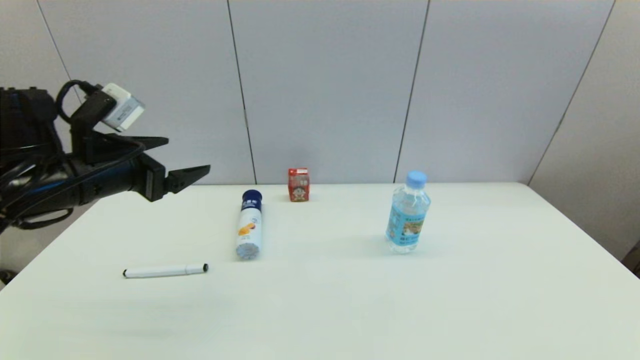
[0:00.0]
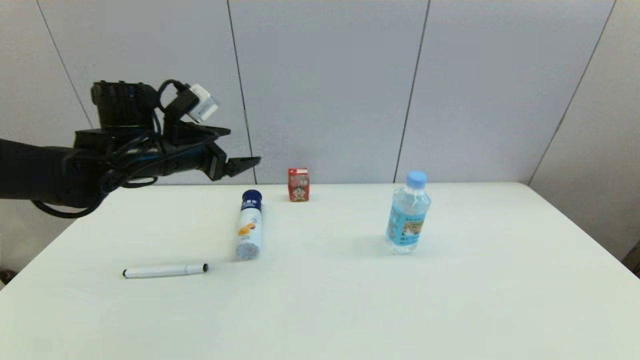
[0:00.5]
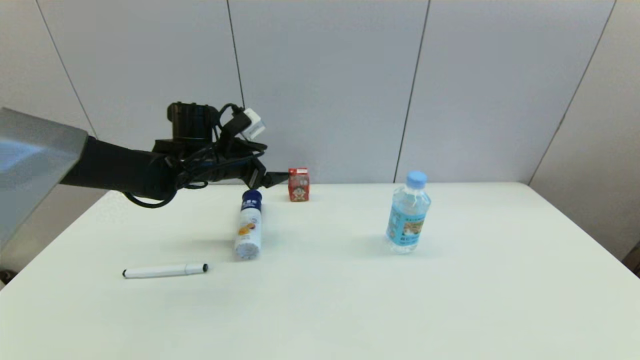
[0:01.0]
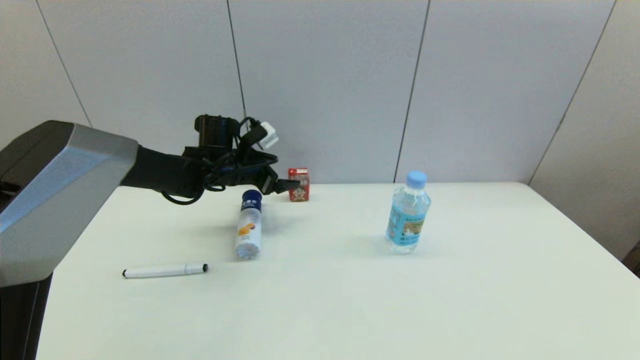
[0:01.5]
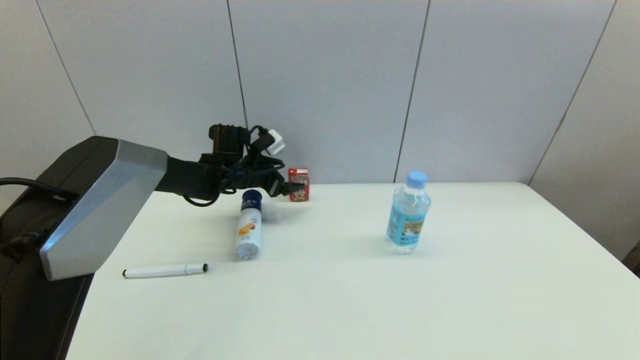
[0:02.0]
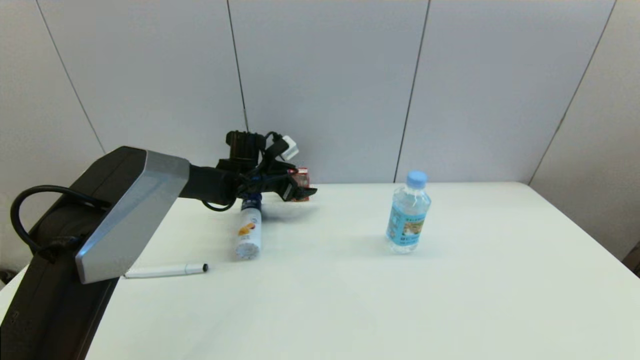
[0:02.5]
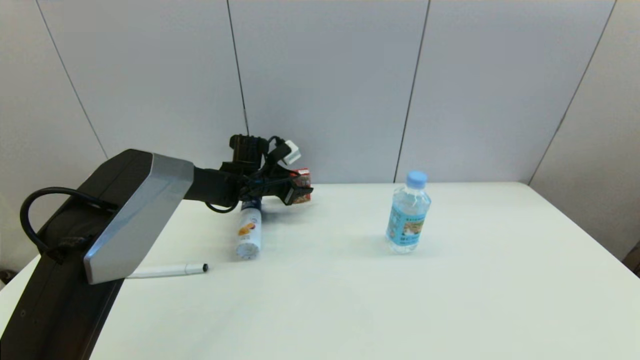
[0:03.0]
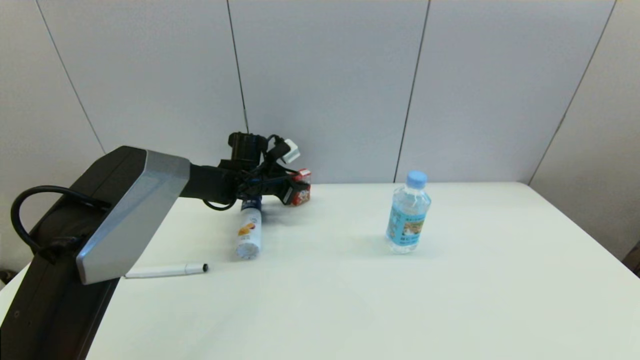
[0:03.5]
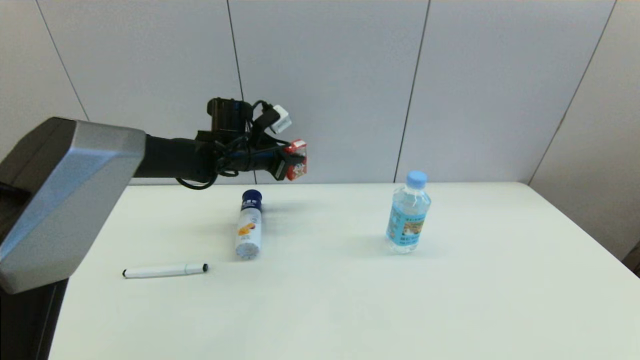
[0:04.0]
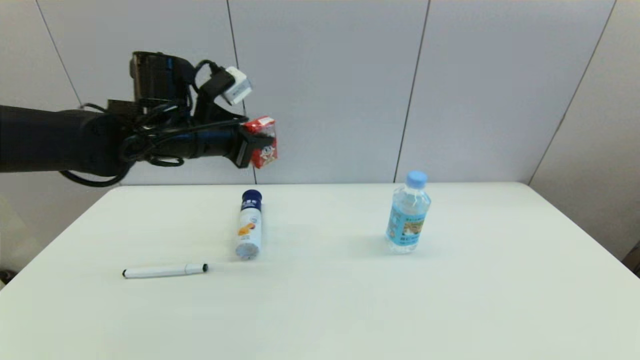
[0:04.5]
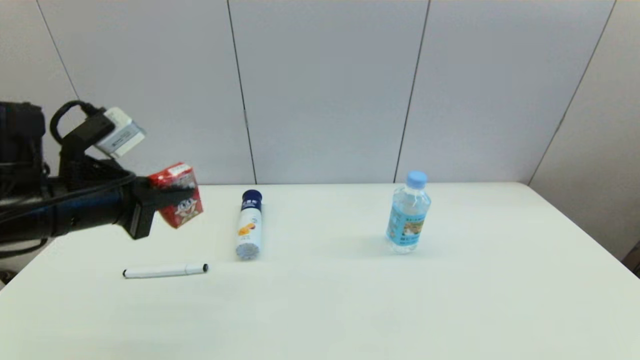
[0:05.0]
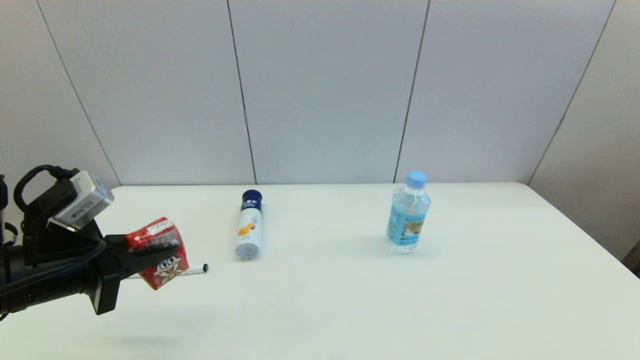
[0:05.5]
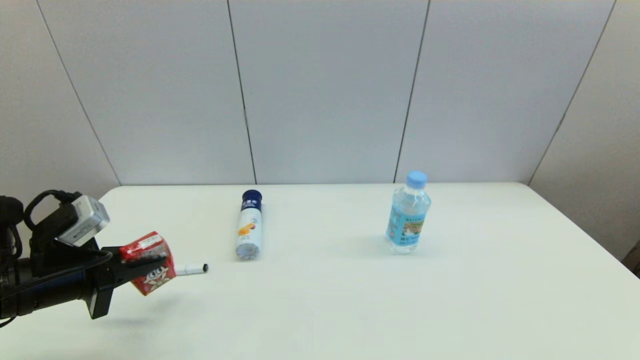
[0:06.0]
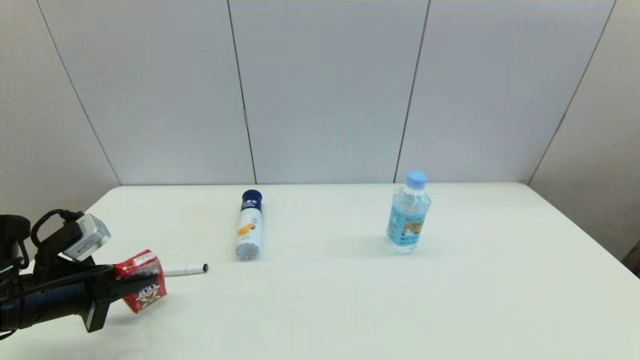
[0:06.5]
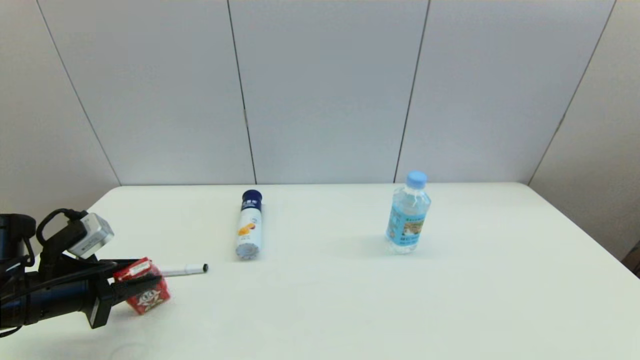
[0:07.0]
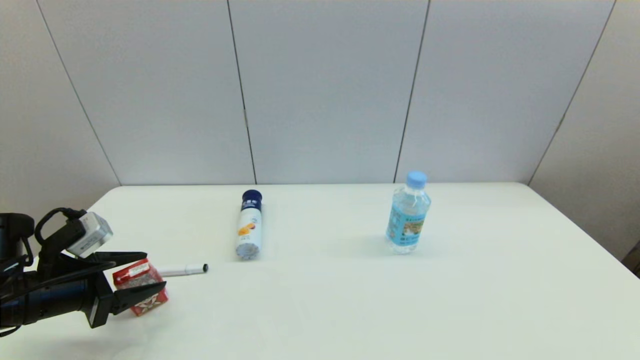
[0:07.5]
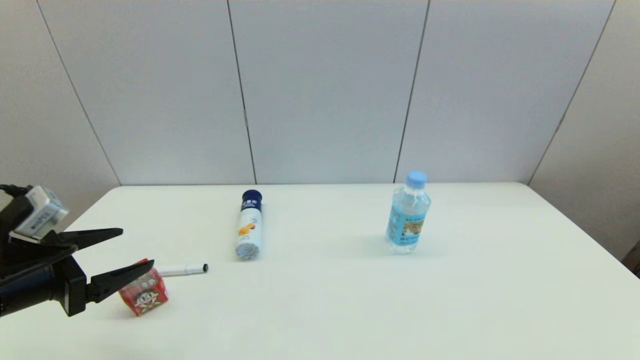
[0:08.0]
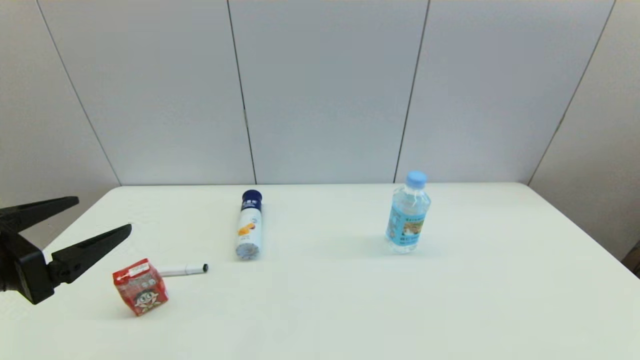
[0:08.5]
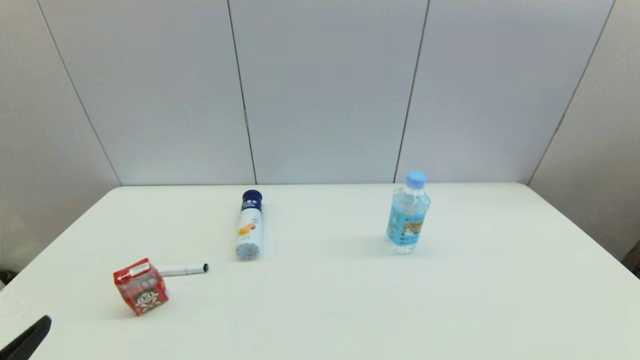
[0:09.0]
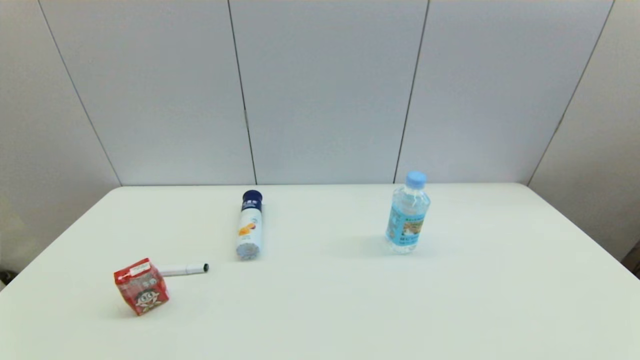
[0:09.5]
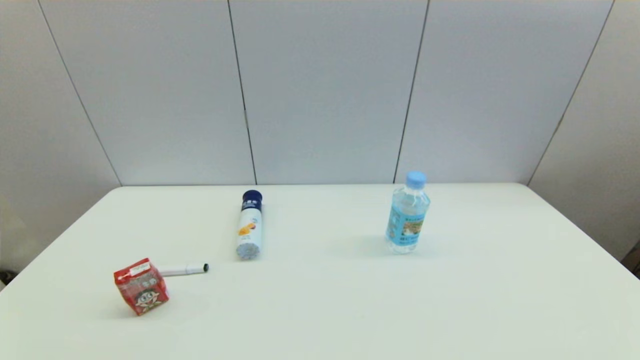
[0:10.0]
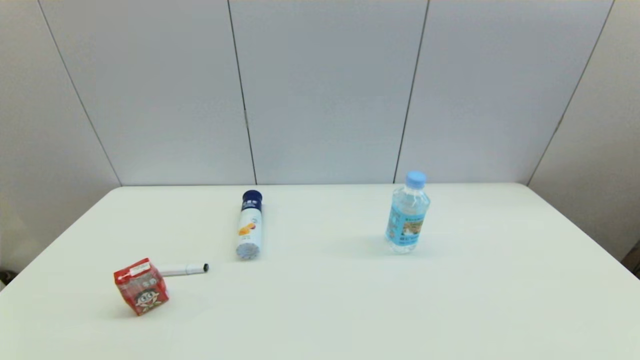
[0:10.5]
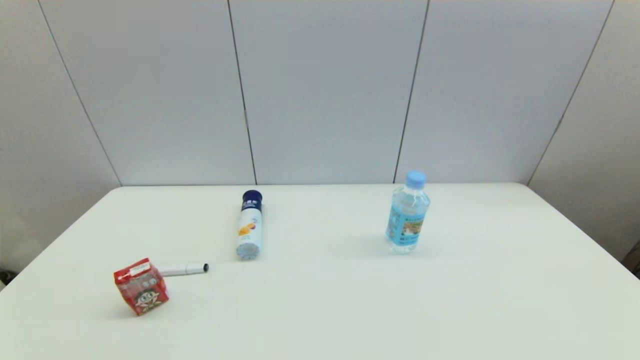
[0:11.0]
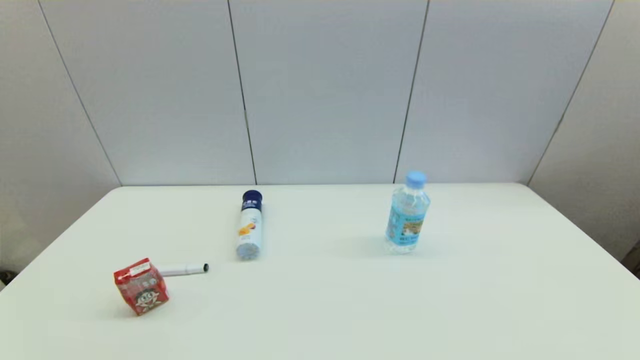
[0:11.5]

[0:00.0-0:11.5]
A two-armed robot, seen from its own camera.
Step, 0:00.0 to 0:03.0: Grasp the wangzai milk with left gripper.
Step, 0:04.0 to 0:07.0: Place the wangzai milk on the table with left gripper.
0:00.0 to 0:02.0: The left gripper heads forward, downward and to the right, covering approximately 25 cm.
0:02.0 to 0:04.0: The left gripper shifts approximately 5 cm upward, and closes its fingers.
0:04.0 to 0:06.0: The left gripper goes about 30 cm backward and to the left.
0:06.0 to 0:07.5: The left gripper opens its fingers.
0:07.5 to 0:09.5: The left gripper travels backward by about 25 cm.
